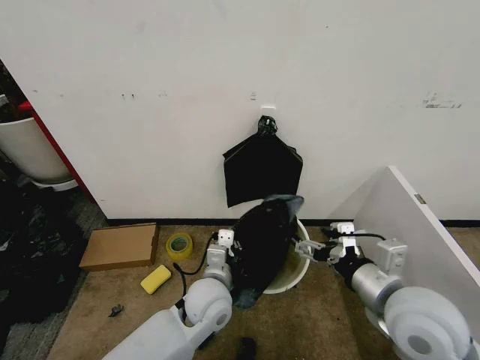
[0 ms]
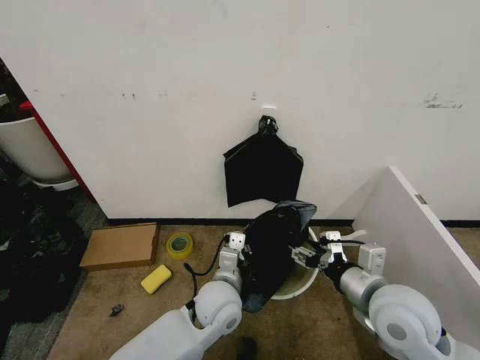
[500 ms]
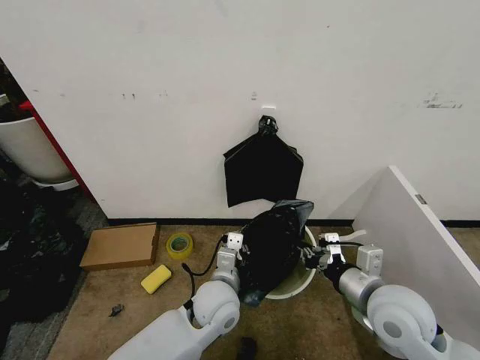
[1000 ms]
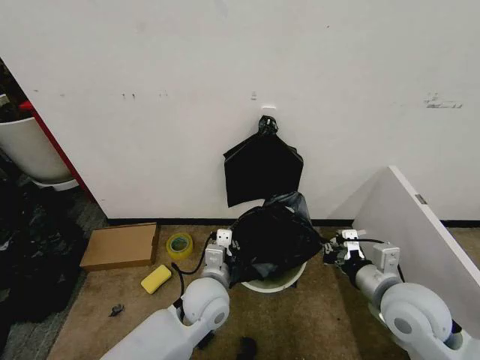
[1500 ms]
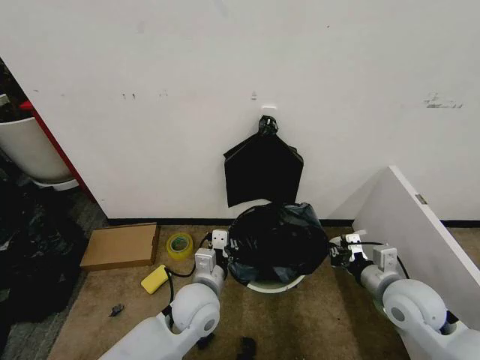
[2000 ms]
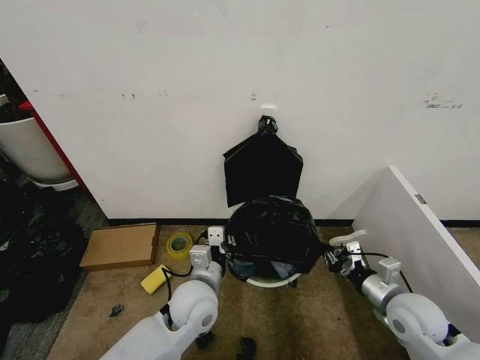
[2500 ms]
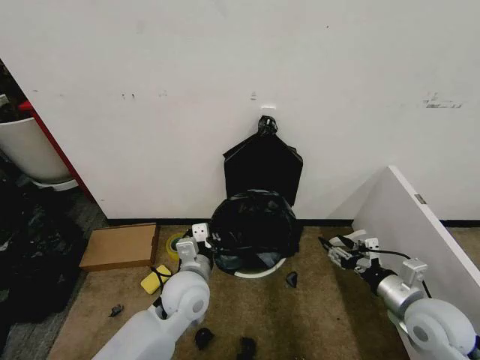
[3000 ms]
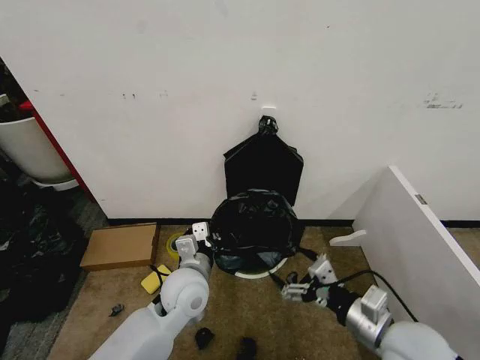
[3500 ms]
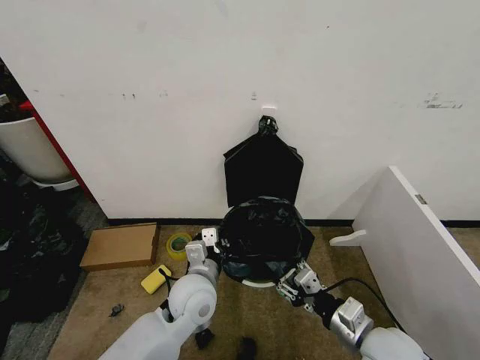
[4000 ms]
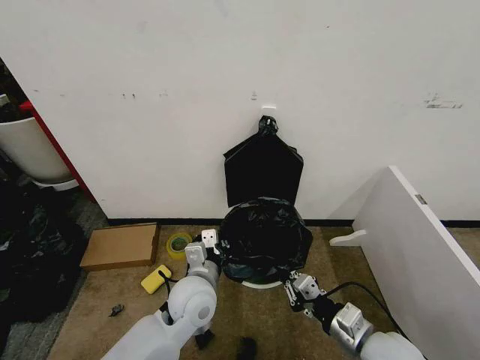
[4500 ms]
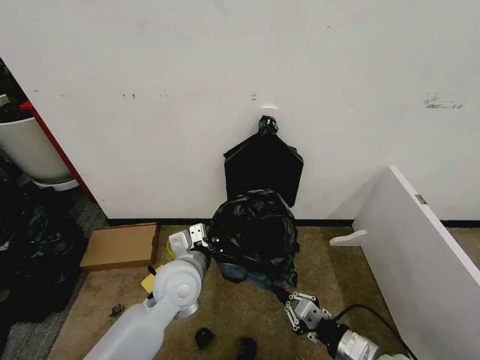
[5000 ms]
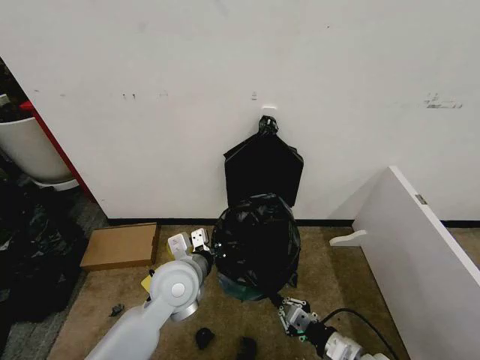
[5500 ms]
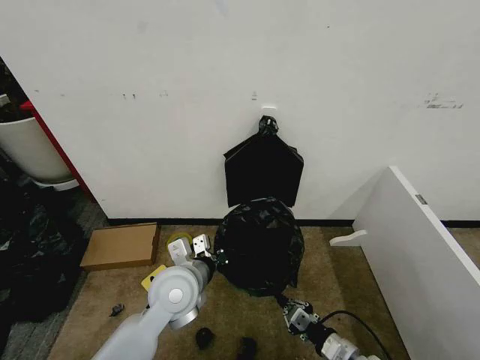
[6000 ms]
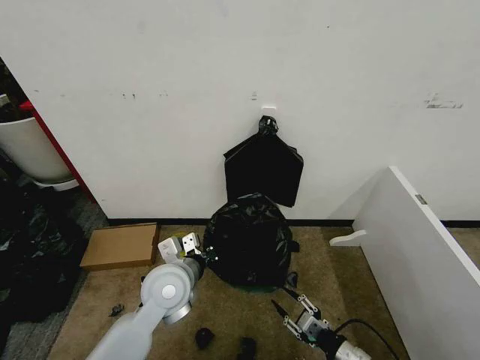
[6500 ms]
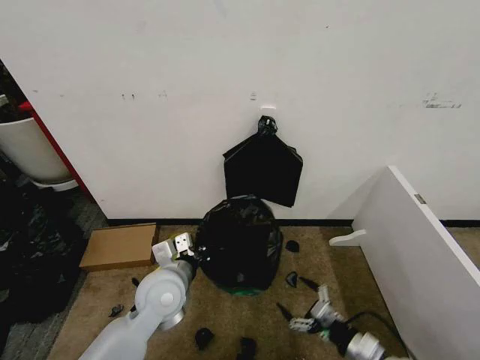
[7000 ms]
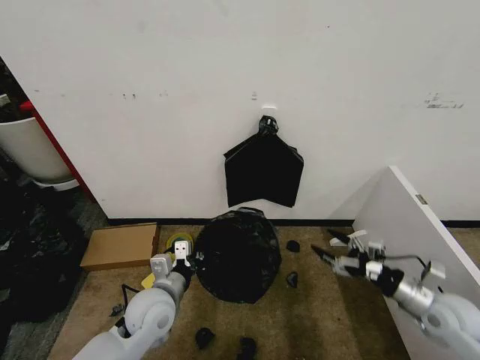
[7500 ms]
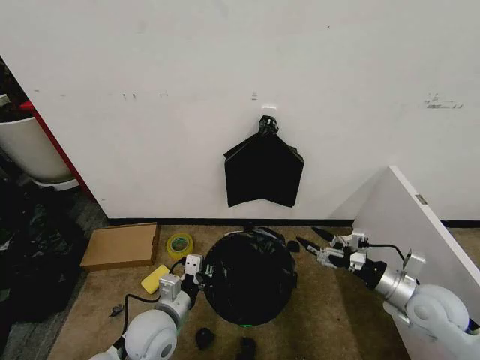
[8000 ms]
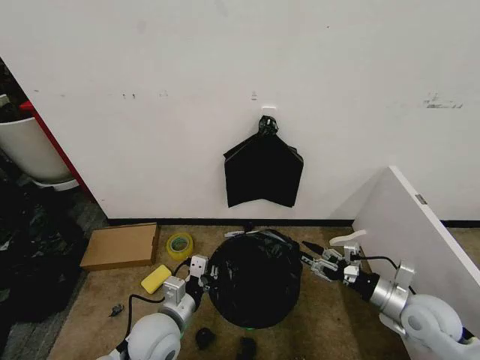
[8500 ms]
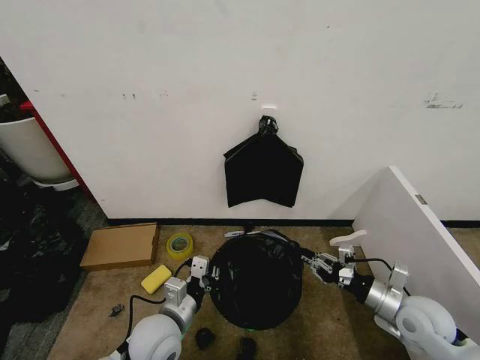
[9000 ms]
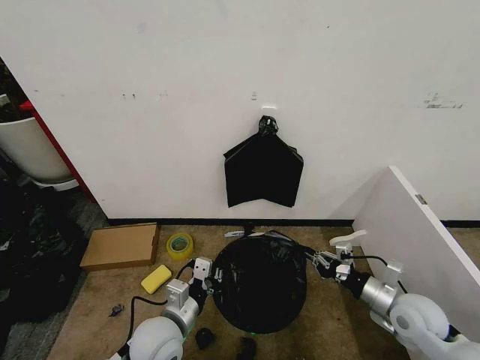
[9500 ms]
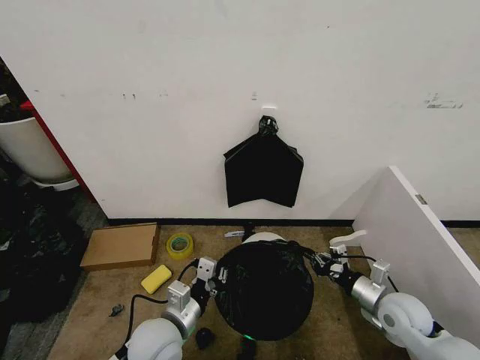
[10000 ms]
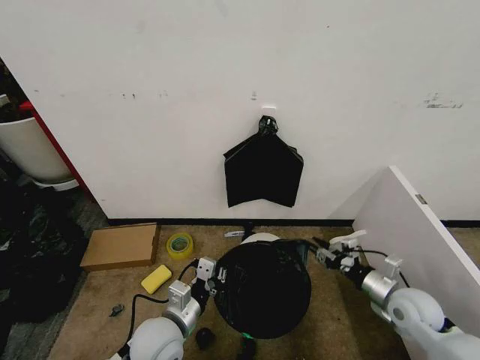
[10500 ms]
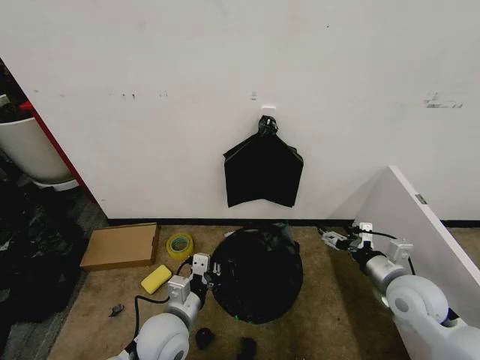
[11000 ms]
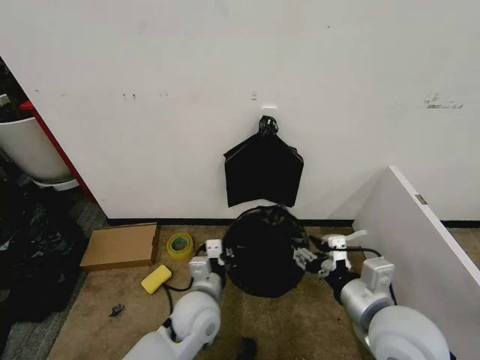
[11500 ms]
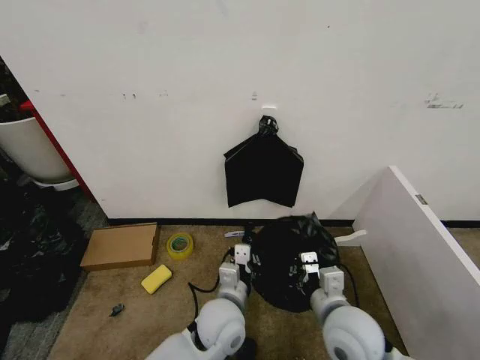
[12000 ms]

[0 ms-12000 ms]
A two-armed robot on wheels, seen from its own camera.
Task of the whole recording: Place the garbage bag over the trash bin.
0 ms to 2000 ms: The right gripper heads downward, to the right and forward, covering approximately 15 cm, and closes.
2000 ms to 4000 ms: The right gripper shifts about 10 cm backward and to the left, and opens up.
4000 ms to 6000 ms: The left gripper moves roughly 5 cm. The right gripper moves downward, about 10 cm, and closes its fingers.
6000 ms to 8000 ms: The right gripper shifts about 20 cm upward, to the right and forward, and opens its fingers; the left gripper is displaced downward, backward and to the left by approximately 10 cm.
8000 ms to 10000 ms: The right gripper shifts some 5 cm downward, and closes its fingers.
10000 ms to 12000 ms: The right gripper is displaced to the left and upward by roughly 20 cm, and opens, then closes once more; the left gripper heads to the right, covering approximately 10 cm.

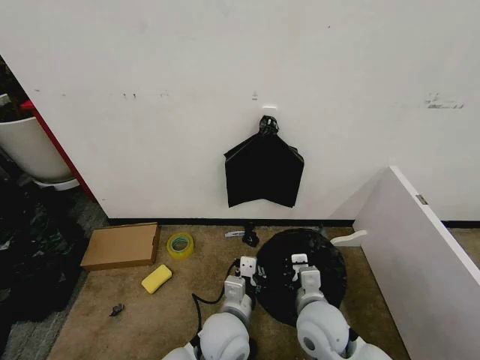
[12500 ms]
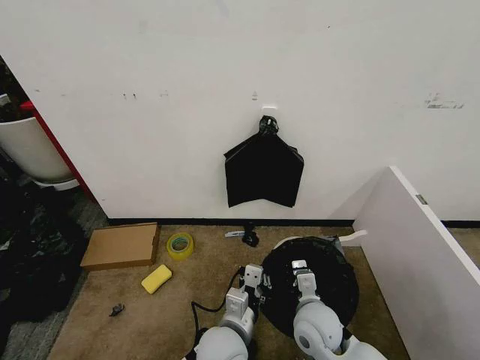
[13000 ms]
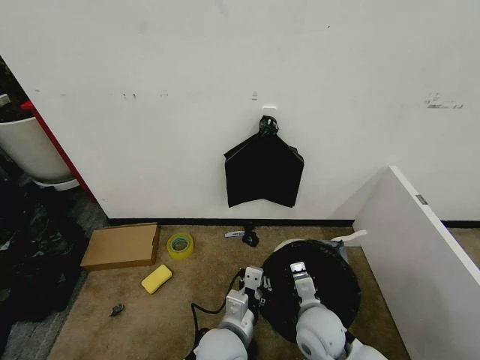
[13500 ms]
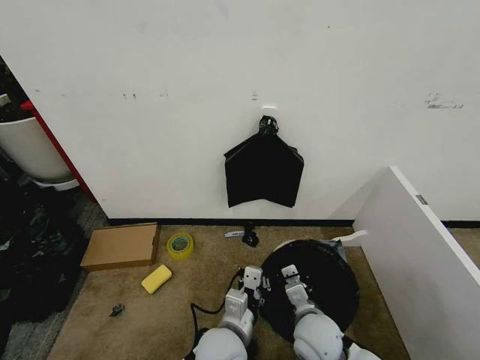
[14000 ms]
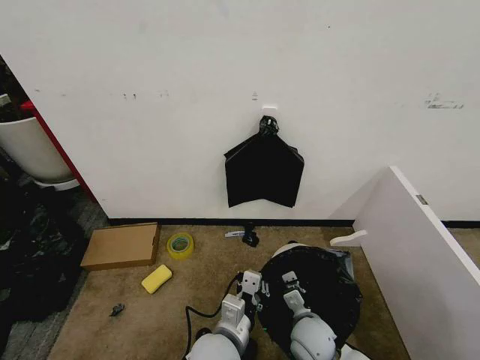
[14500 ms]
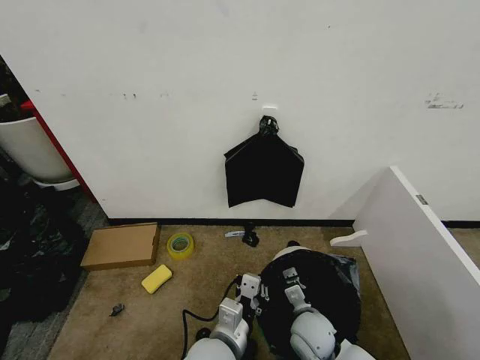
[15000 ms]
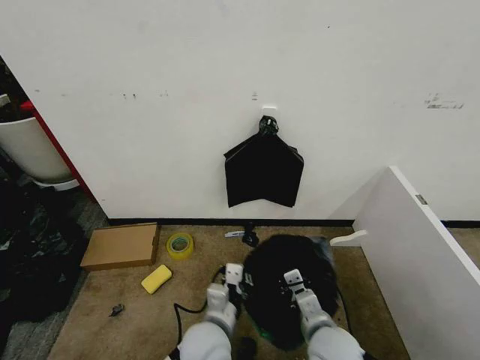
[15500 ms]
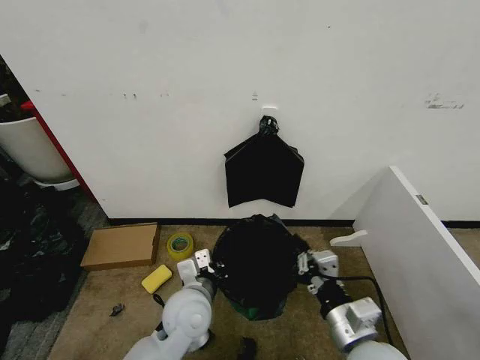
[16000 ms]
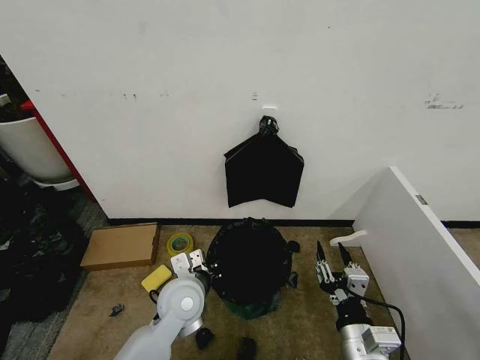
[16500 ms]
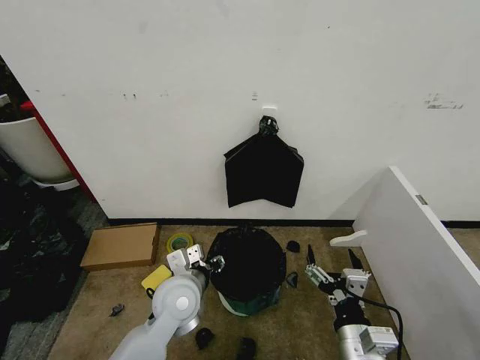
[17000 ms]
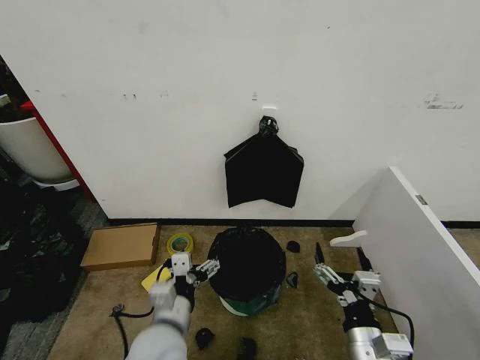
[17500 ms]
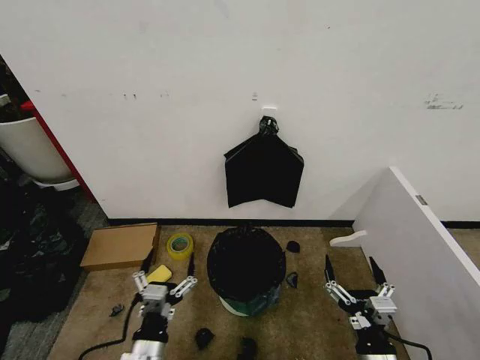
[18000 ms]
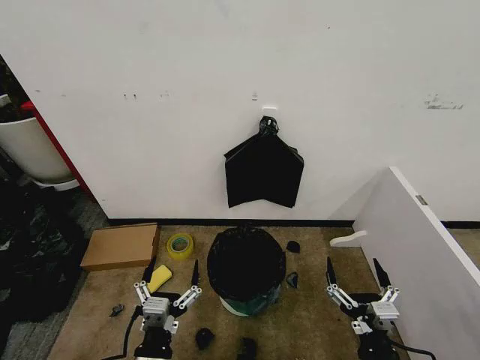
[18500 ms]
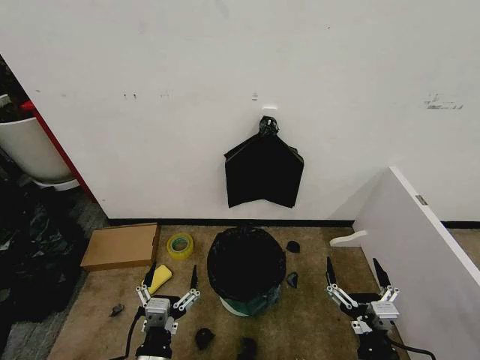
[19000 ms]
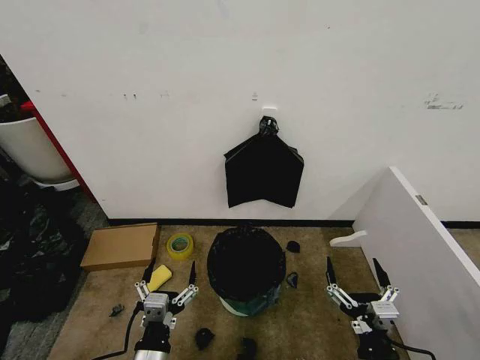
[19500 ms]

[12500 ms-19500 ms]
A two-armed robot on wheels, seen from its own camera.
Task of the whole recording: Place the garbage bag over the trash bin.
12500 ms to 14500 ms: The right gripper shifts approximately 10 cm downward.
14500 ms to 16000 ms: The right gripper goes approximately 15 cm upward and backward, while the left gripper travels forward and to the left by about 10 cm.
16000 ms to 17500 ms: The right gripper shifts about 5 cm downward, and opens its fingers. Meanwhile the left gripper is displaced backward by some 10 cm, and opens.
17500 ms to 19500 ms: The left gripper moves backward and downward, about 10 cm.
